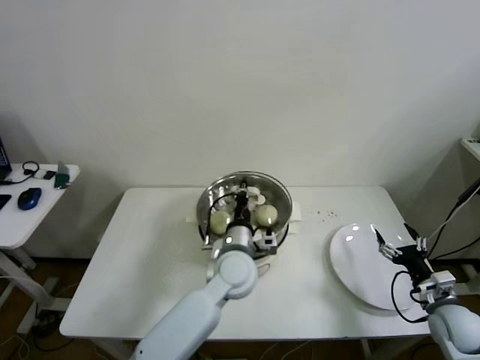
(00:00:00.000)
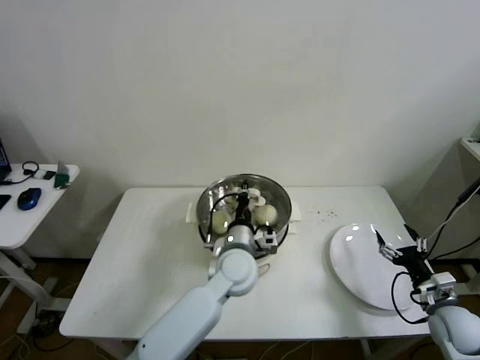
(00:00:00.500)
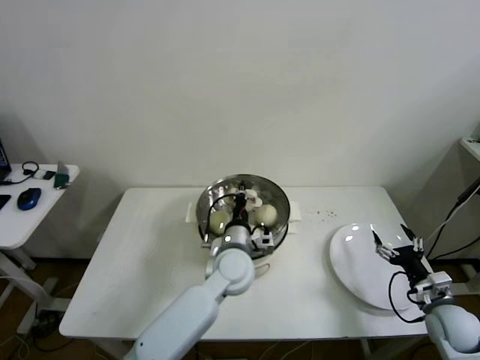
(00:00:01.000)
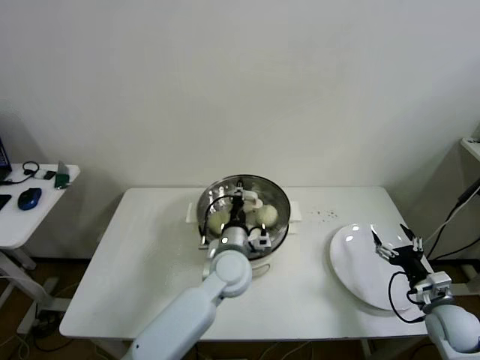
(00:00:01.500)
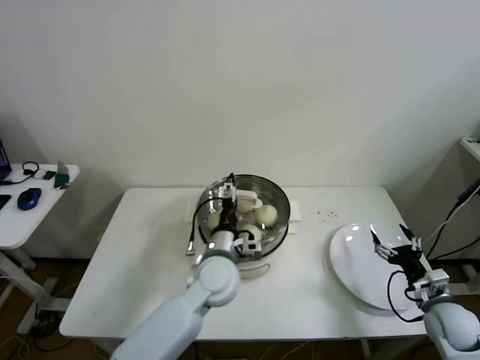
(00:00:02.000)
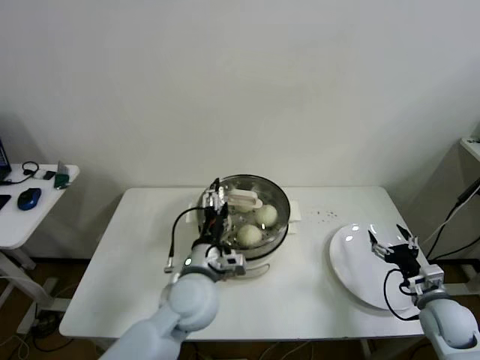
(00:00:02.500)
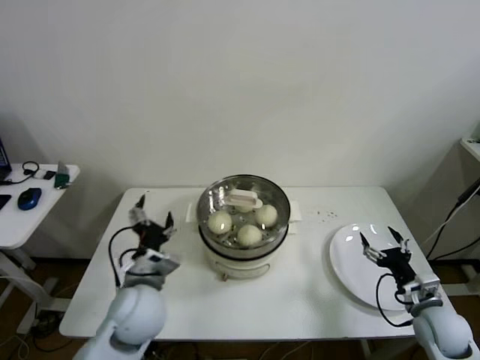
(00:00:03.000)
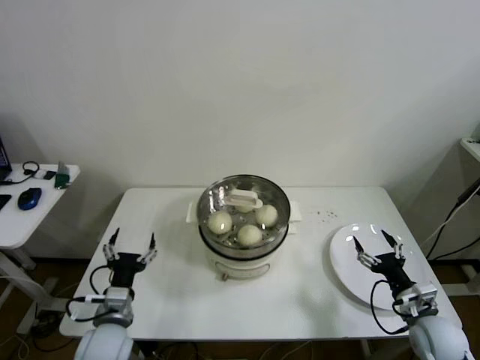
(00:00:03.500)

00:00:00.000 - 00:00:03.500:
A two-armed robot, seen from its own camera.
00:00:00.000 - 00:00:02.000: The left gripper opens up.
00:00:02.000 - 00:00:03.500: The left gripper travels to the left and backward by about 25 cm, while the right gripper shifts by roughly 5 cm.
